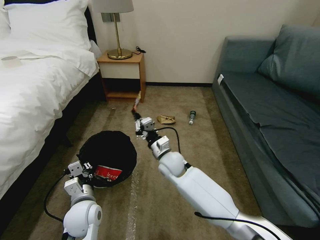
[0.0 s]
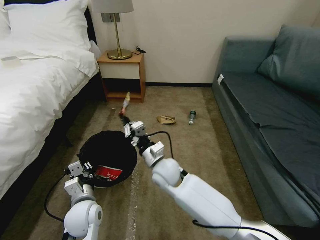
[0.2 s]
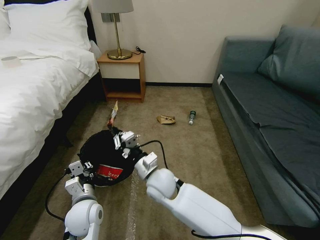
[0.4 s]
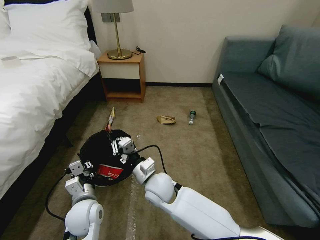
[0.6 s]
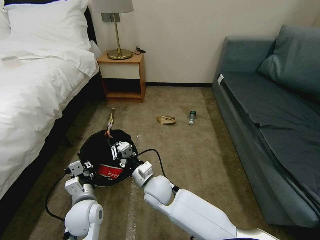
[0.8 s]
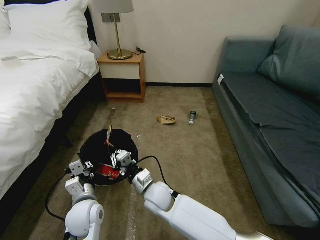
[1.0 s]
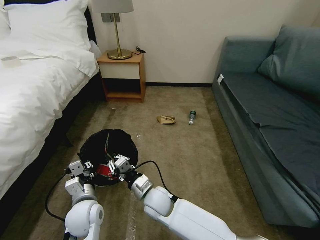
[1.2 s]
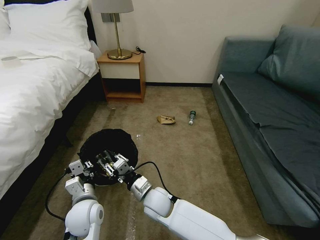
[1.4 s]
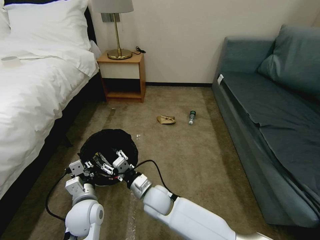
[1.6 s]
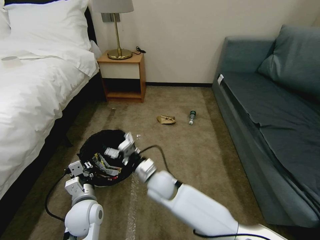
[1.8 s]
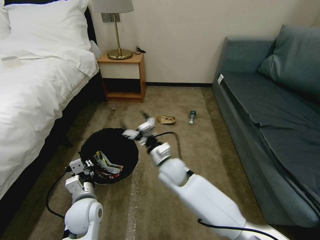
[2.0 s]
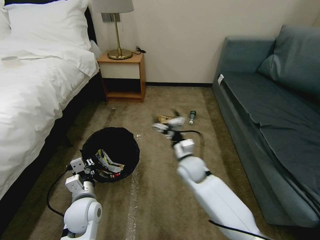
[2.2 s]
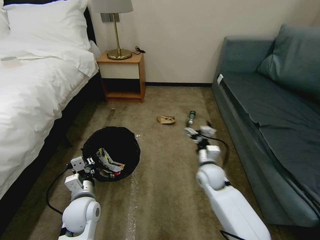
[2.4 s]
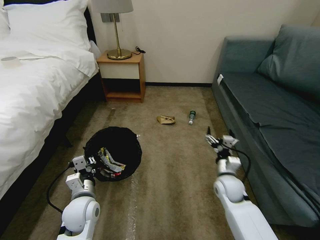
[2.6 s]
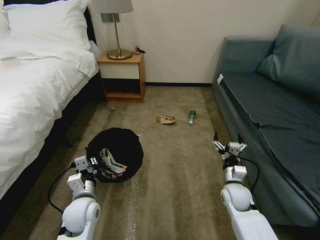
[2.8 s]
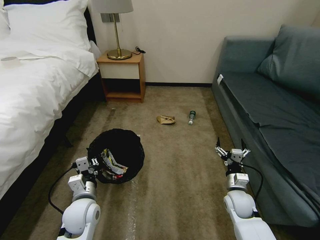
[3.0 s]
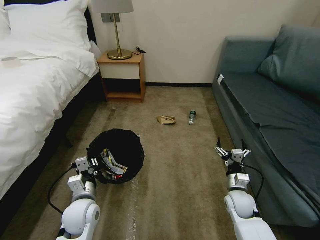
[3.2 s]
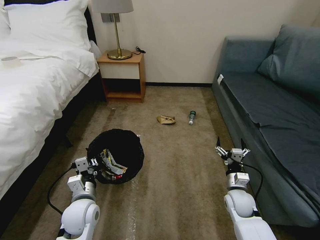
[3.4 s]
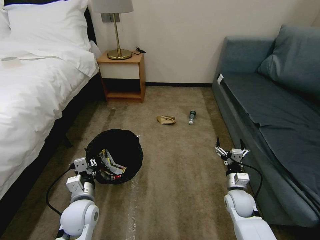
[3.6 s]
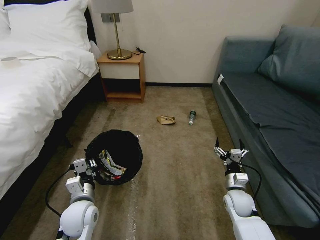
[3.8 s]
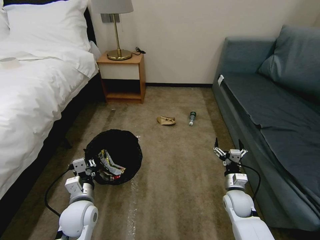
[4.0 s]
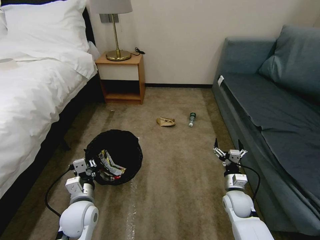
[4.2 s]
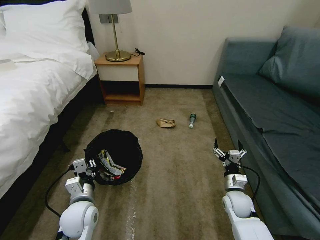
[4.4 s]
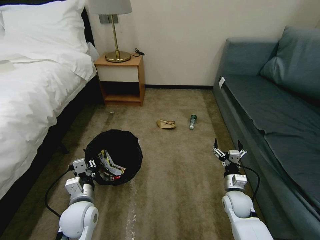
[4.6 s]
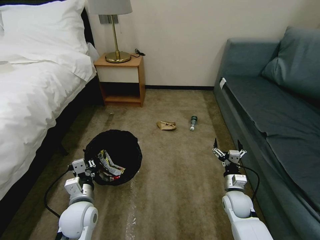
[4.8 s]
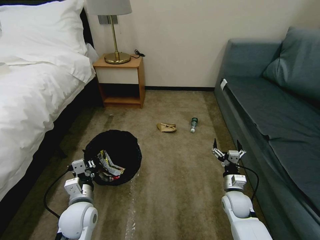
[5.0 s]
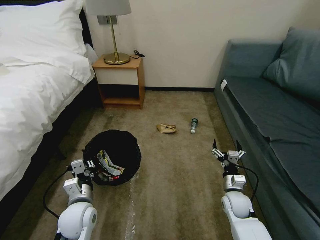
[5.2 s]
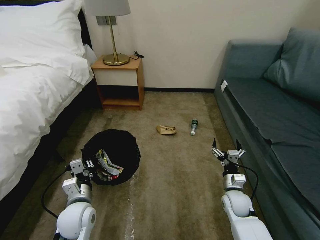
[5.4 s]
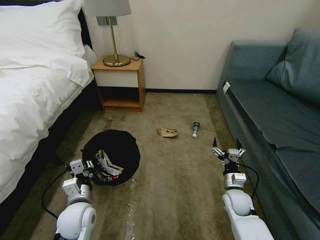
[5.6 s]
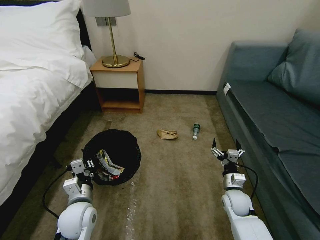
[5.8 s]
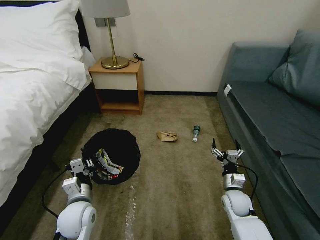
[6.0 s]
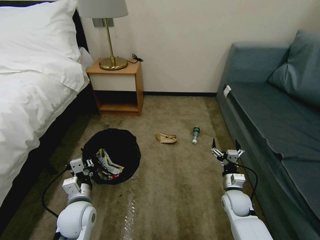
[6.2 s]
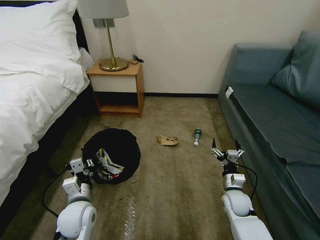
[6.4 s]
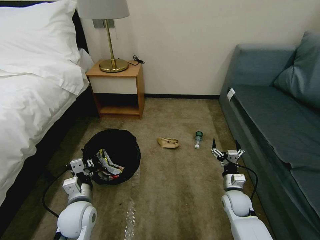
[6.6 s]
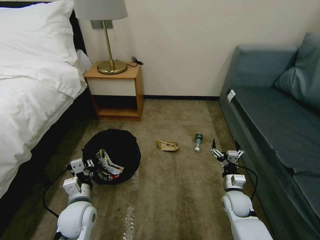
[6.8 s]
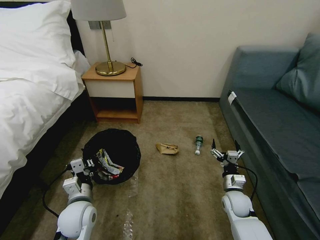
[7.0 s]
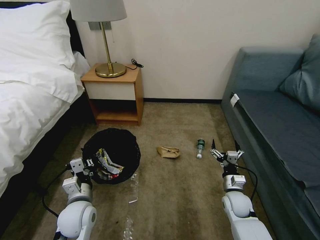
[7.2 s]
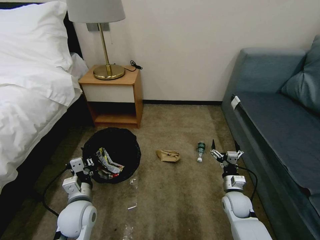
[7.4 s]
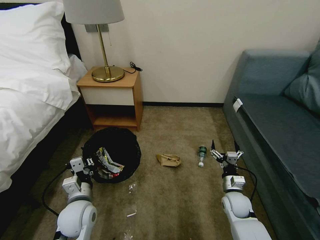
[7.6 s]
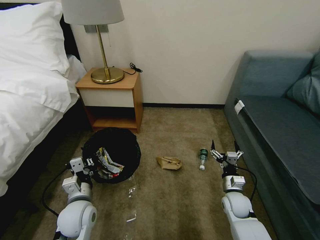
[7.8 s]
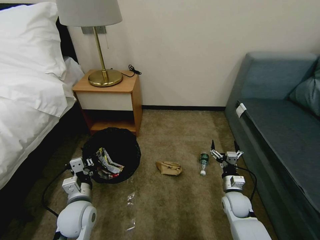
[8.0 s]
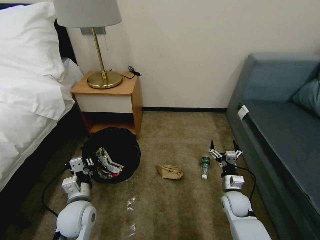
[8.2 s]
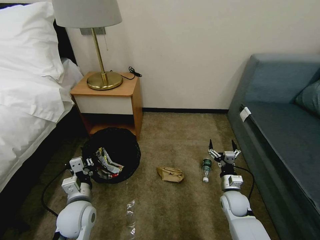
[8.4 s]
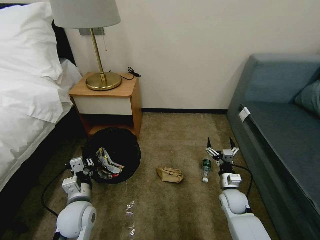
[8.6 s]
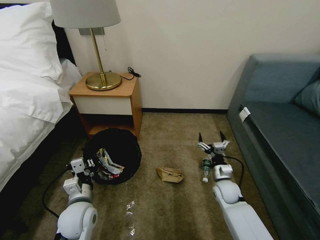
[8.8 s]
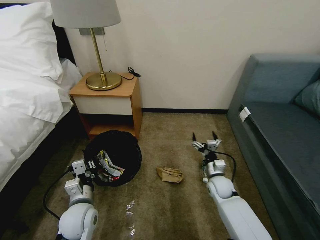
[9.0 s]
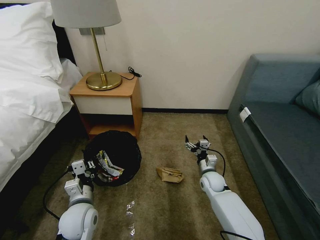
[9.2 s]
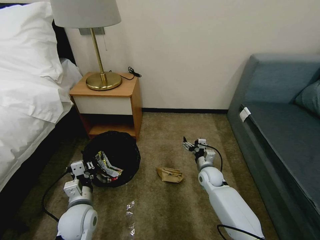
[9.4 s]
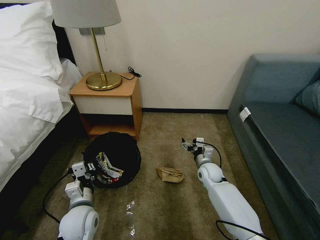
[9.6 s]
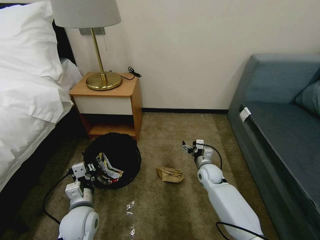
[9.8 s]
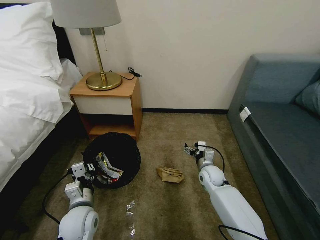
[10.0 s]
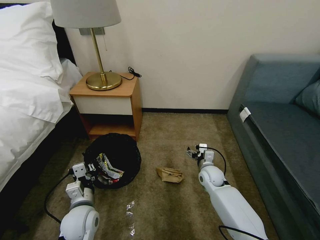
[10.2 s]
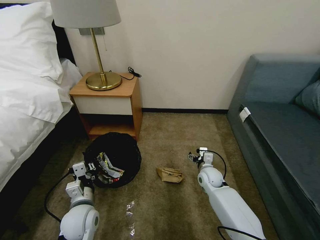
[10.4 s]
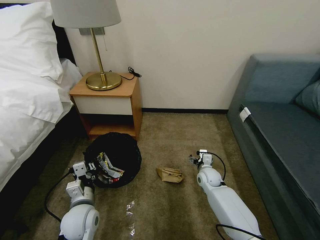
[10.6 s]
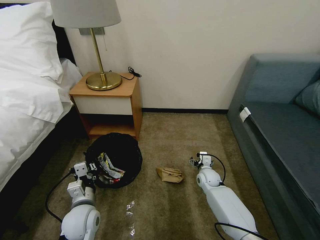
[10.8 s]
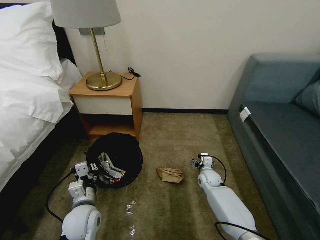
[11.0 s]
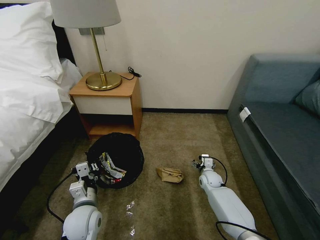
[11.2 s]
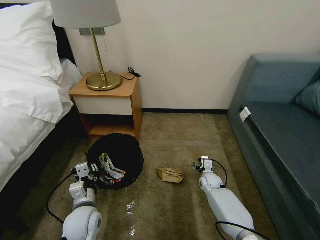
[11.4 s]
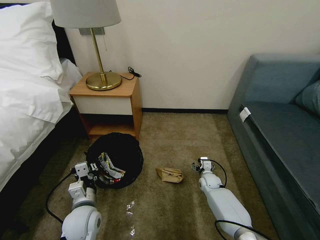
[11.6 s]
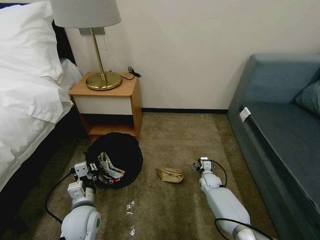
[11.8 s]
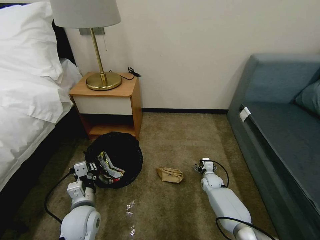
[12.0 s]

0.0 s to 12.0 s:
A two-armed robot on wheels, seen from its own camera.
Task of the whole recording: Pick up the trash bin, then pick up the garbage on the floor and place it into the trash bin.
0.0 to 1.6 s: The right gripper shifts some 15 cm backward, downward and to the left, and opens.
1.6 to 3.0 s: The right gripper moves to the right, roughly 30 cm, and opens.
3.0 to 4.4 s: Both grippers stay put.
4.4 to 6.0 s: Neither gripper changes place.
7.6 to 9.0 s: The right gripper travels forward by about 5 cm.
10.4 to 12.0 s: The right gripper moves downward, some 10 cm.

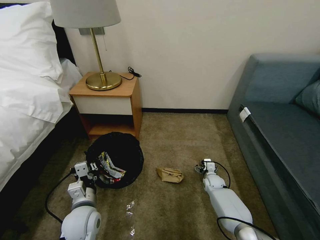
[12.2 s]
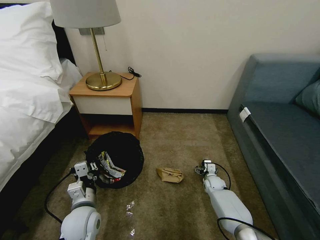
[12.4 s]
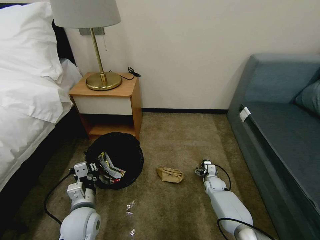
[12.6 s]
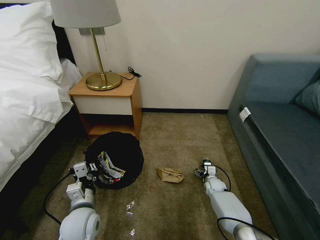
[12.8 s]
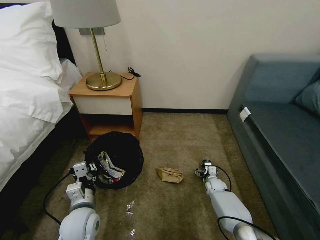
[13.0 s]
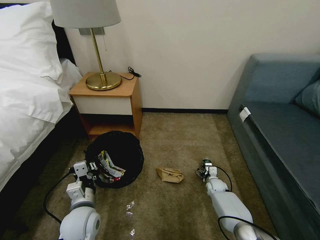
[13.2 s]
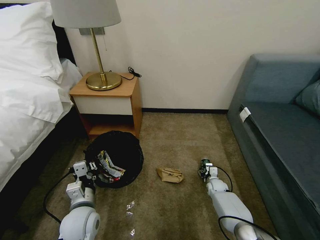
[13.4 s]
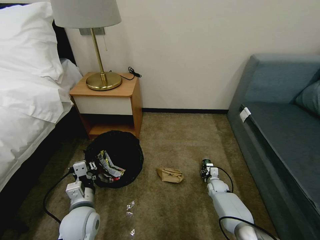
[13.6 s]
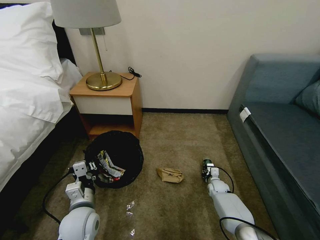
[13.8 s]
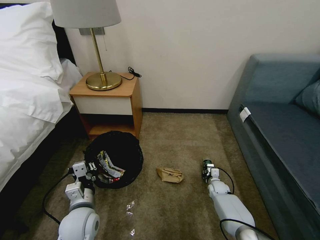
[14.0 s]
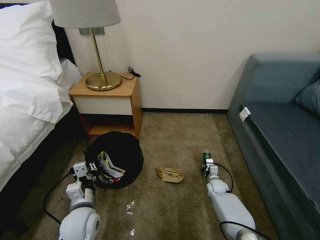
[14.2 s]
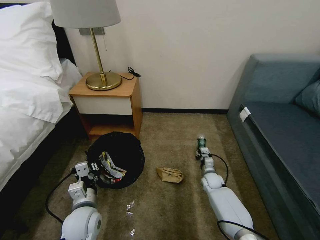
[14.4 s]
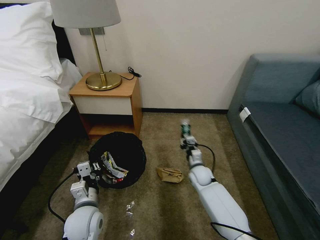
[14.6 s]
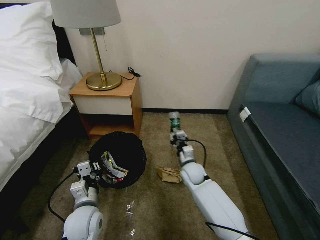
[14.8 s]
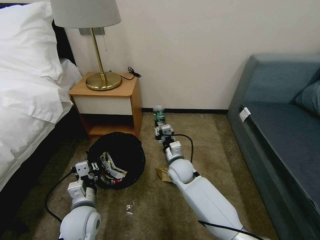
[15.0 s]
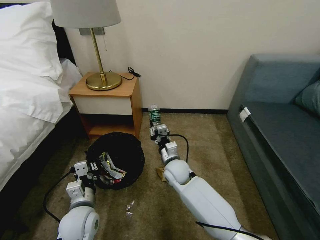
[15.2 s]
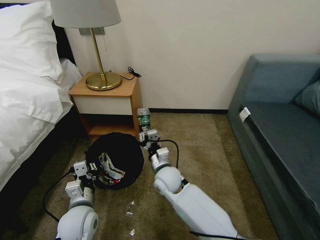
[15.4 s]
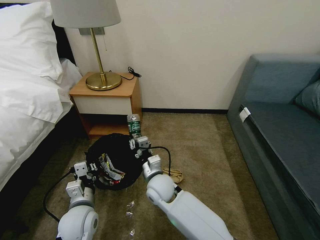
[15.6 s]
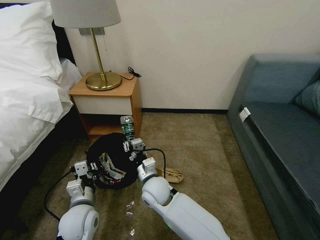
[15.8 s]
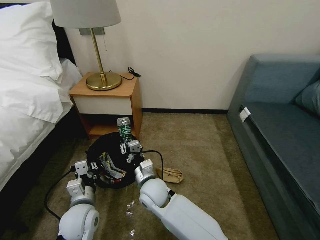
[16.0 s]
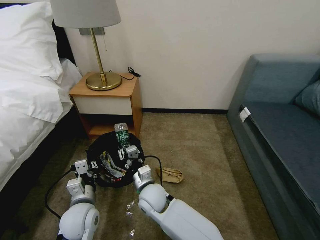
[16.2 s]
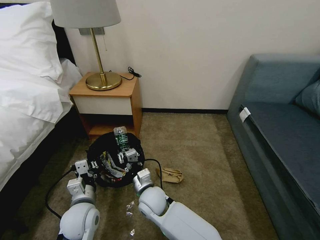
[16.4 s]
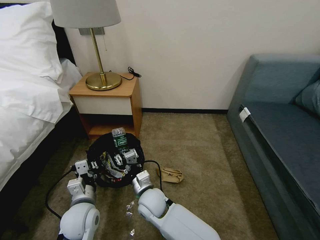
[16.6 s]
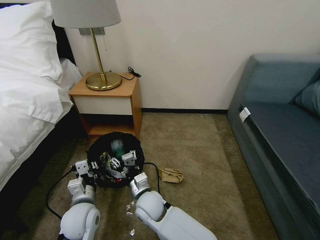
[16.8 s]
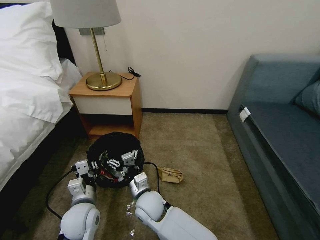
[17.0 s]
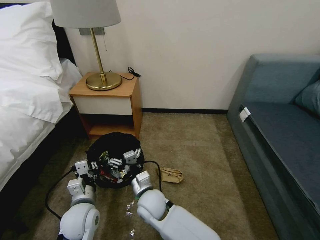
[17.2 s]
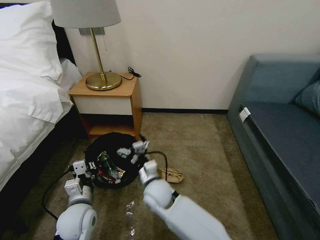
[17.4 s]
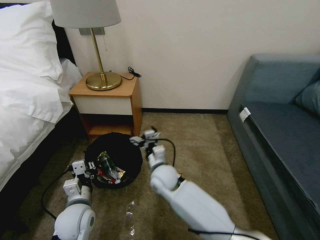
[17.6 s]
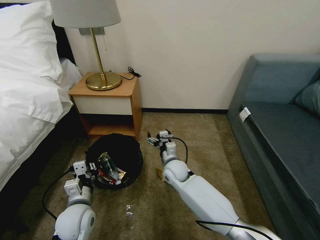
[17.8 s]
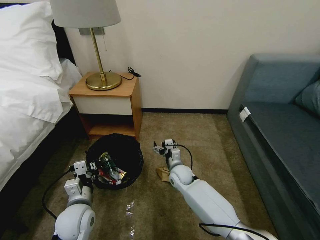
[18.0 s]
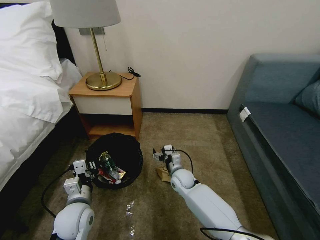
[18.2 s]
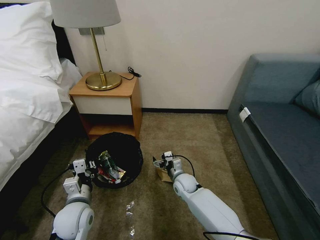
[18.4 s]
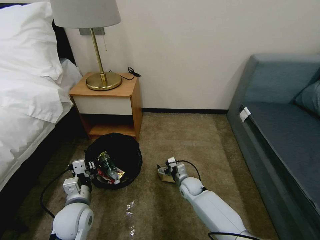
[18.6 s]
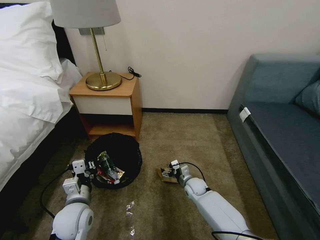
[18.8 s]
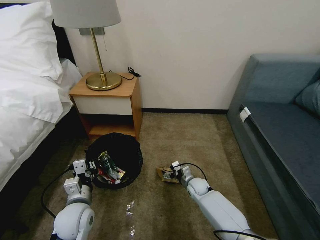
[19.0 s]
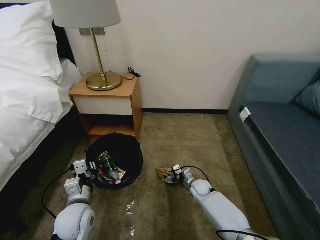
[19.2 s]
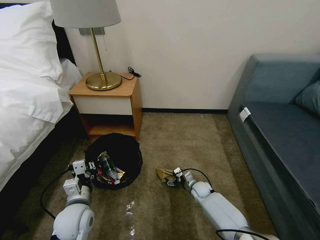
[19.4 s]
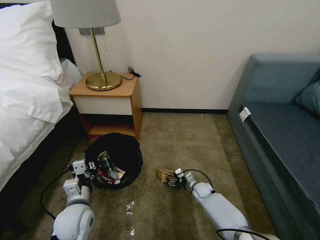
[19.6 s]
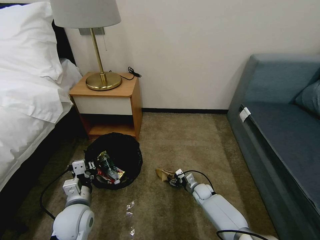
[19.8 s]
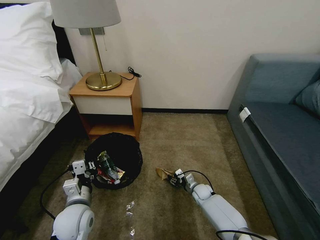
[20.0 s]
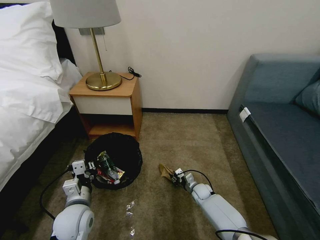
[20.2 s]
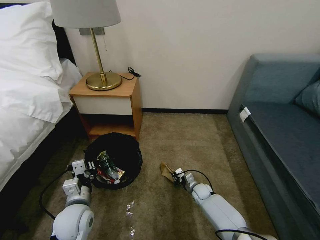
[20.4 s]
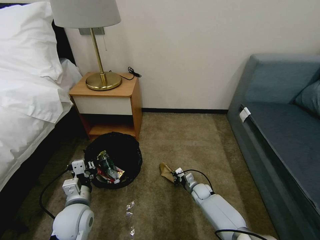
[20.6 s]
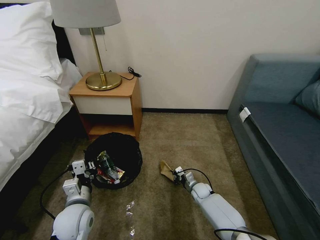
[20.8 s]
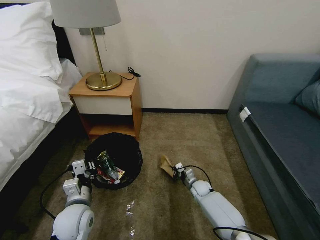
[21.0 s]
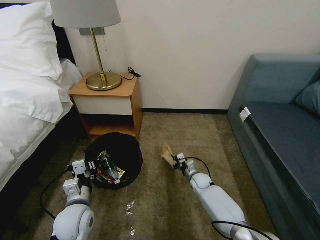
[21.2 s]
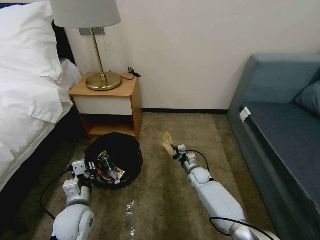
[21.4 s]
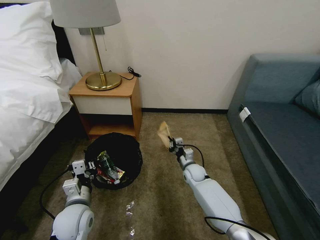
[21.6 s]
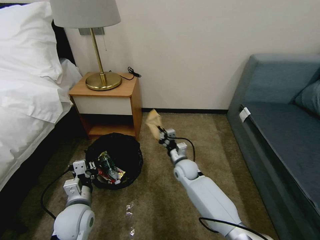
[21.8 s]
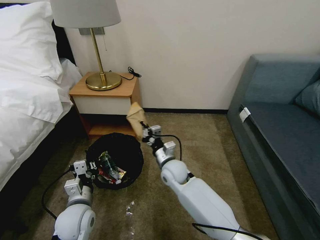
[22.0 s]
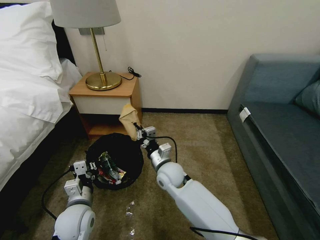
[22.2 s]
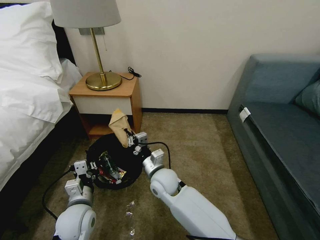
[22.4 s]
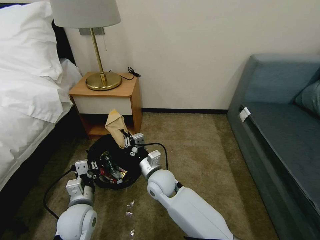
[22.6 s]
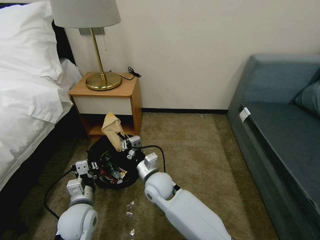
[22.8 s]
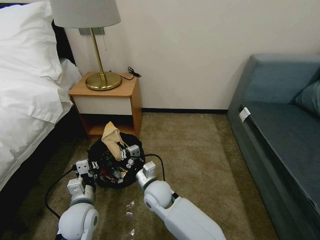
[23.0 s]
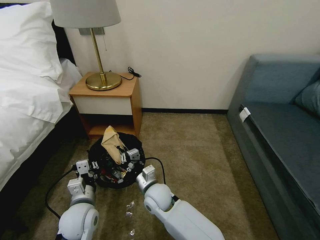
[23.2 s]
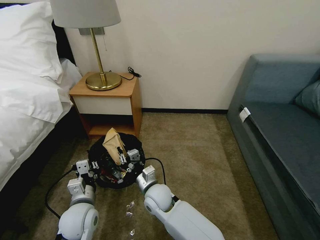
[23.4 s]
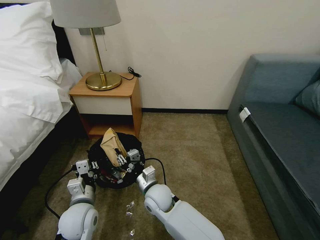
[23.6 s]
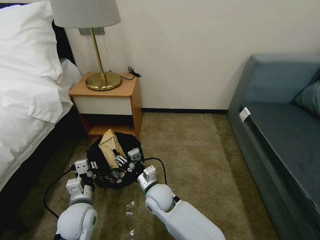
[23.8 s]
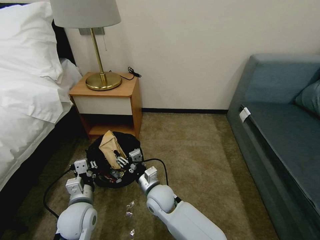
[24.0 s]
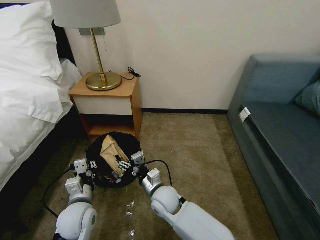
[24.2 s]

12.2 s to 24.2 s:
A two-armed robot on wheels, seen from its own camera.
Task of the whole recording: Pick up the trash bin, then pick up the garbage on the floor and place it into the trash bin.
12.2 to 13.8 s: The right gripper closes its fingers.
13.8 to 15.2 s: The right gripper moves to the left and upward, about 30 cm.
15.2 to 16.6 s: The right gripper moves backward and to the left, some 15 cm.
16.6 to 18.2 s: The right gripper shifts roughly 20 cm to the right, forward and downward, and opens.
18.2 to 19.8 s: The right gripper heads downward and to the right, covering roughly 15 cm.
19.8 to 21.2 s: The right gripper moves approximately 5 cm, and closes.
21.2 to 22.6 s: The right gripper moves to the left, upward and backward, approximately 30 cm.
22.6 to 24.2 s: The right gripper moves approximately 5 cm, and opens up.
